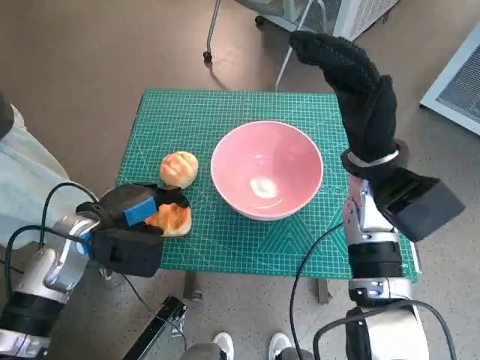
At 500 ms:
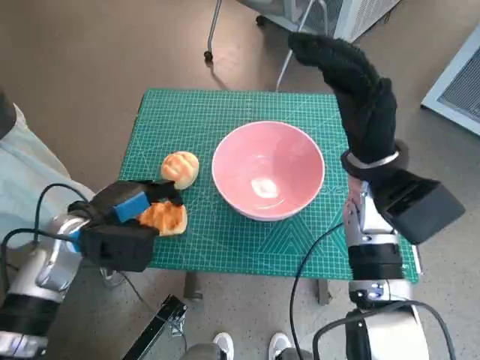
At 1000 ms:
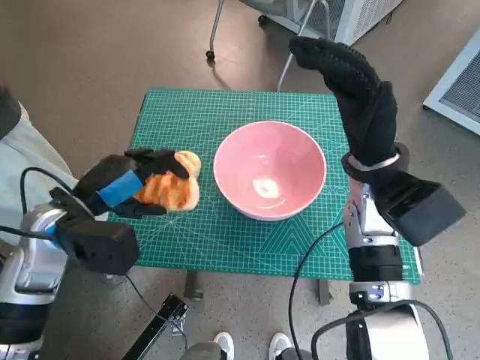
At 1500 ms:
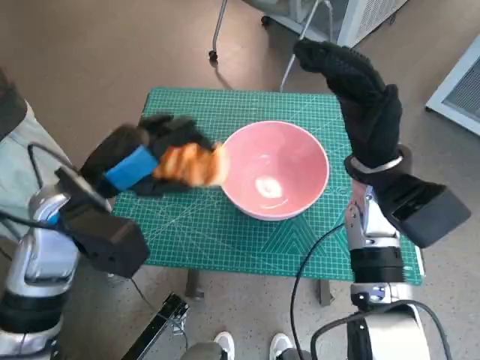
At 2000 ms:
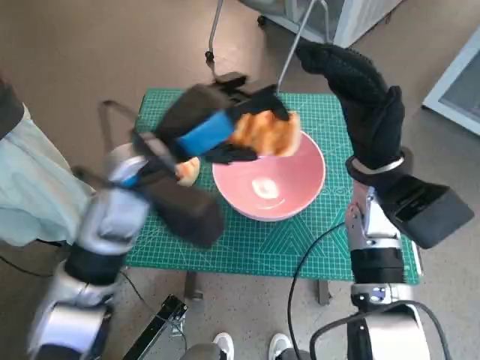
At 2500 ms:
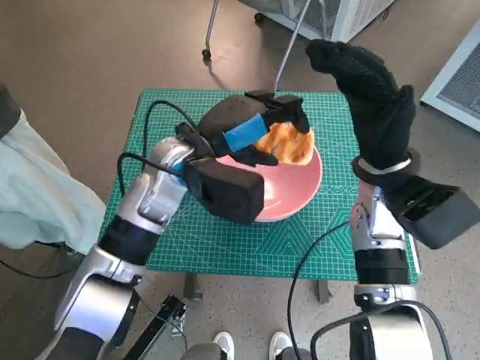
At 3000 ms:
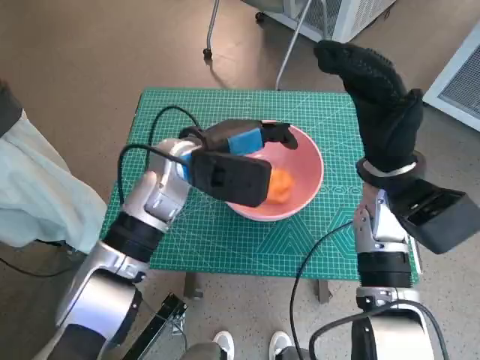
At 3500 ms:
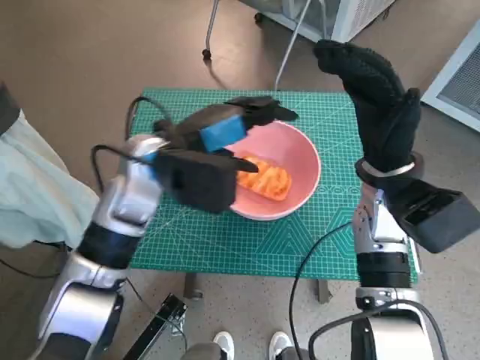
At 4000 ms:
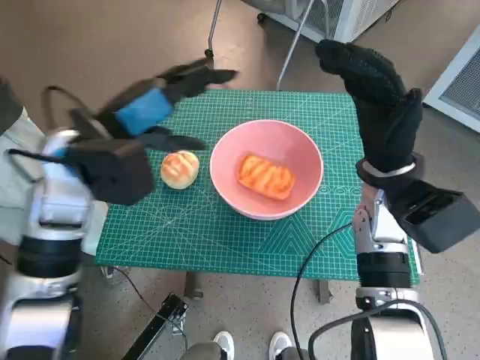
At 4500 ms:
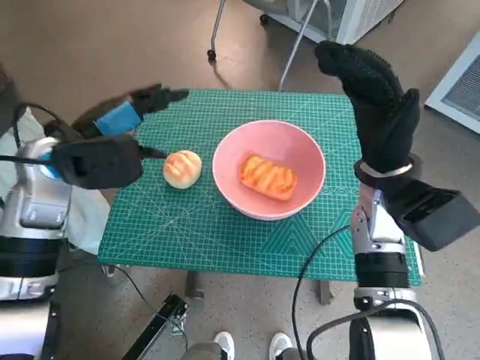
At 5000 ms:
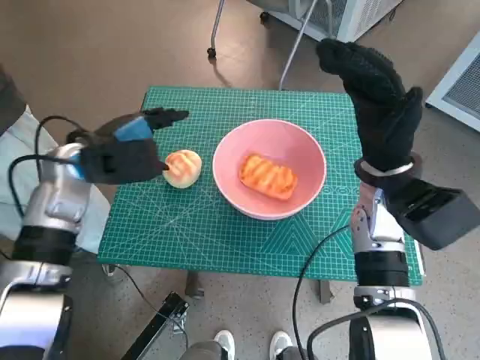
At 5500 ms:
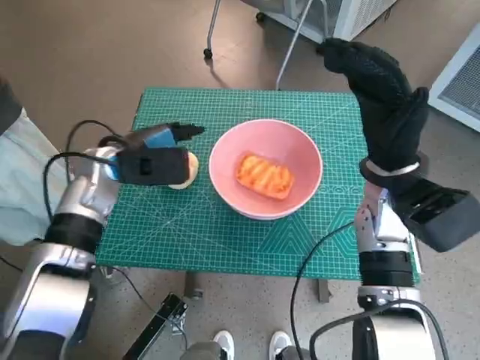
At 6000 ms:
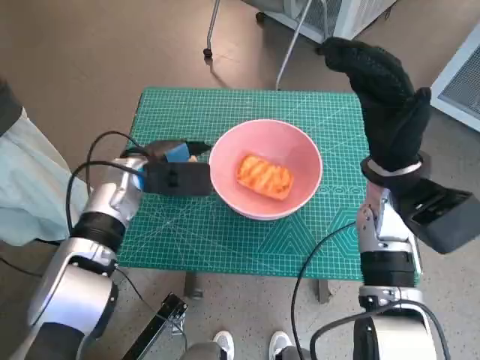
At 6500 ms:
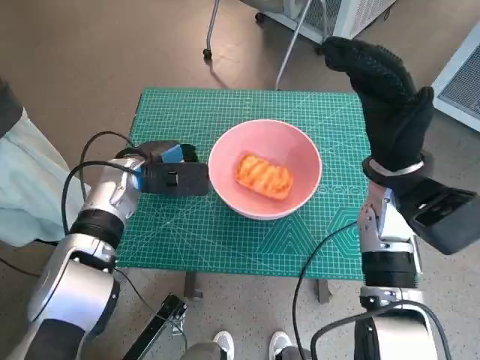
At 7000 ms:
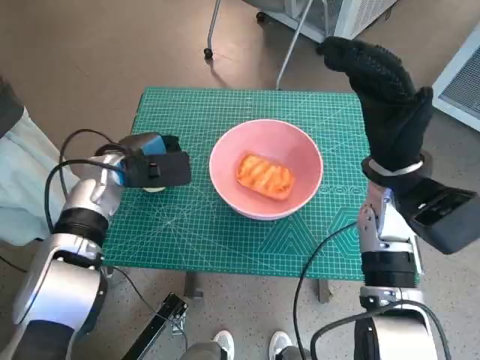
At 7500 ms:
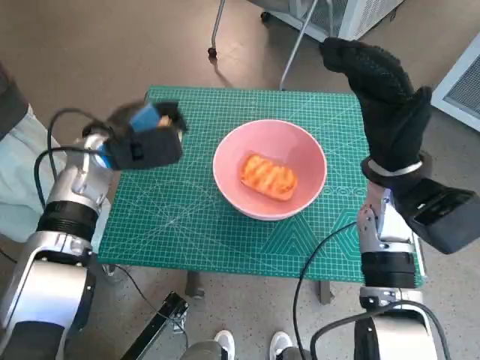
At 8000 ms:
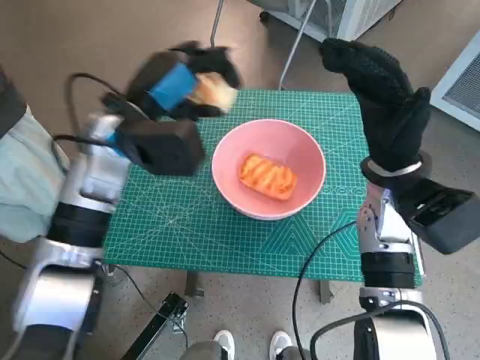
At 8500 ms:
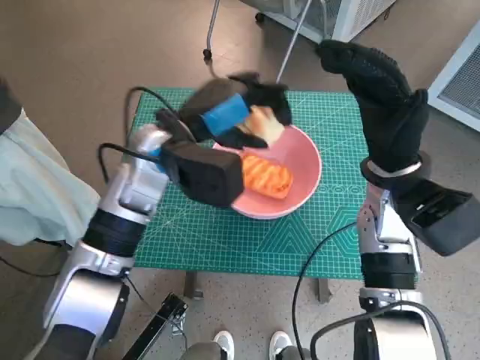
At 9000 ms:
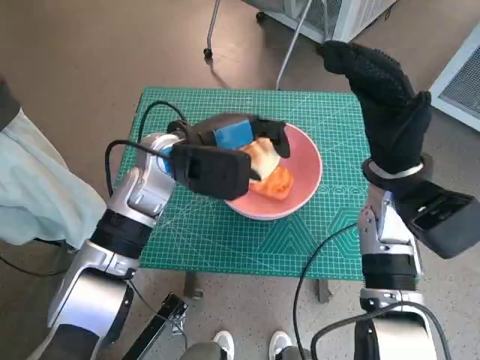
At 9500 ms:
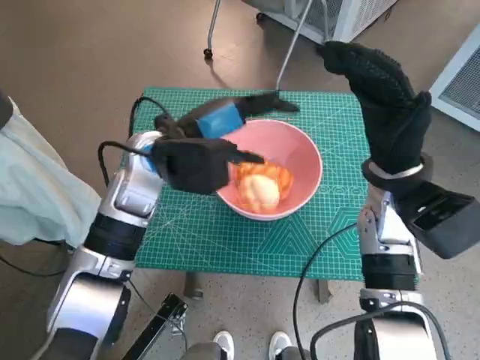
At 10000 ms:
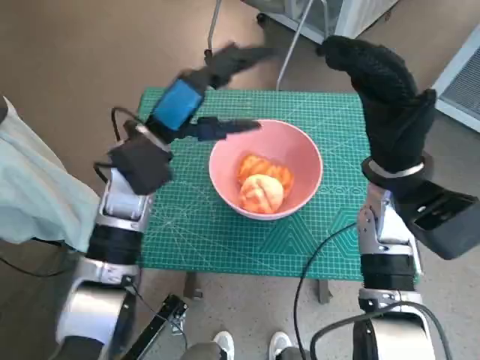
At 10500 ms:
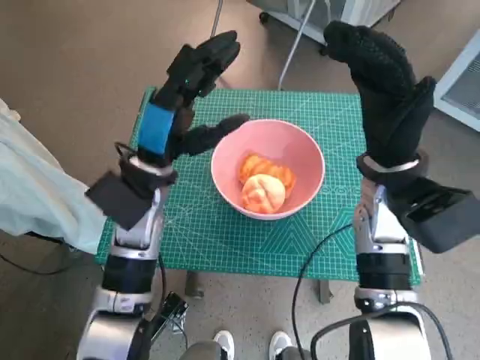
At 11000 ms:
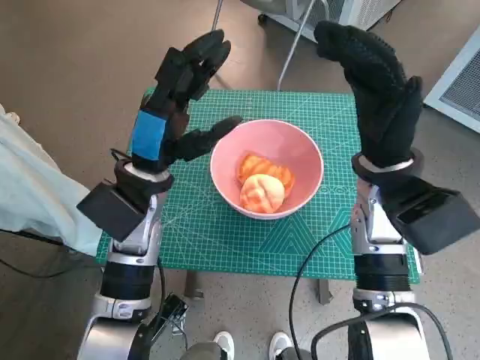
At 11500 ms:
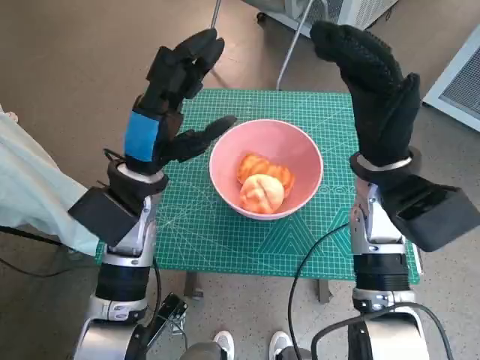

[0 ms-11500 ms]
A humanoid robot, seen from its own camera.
Task of the whole recording: Push the bowl to the center of the table and put the bread into the bowl.
Step, 500 ms to 3000 ms: Place the long bread in pink bowl with left hand.
Step, 3500 ms to 6500 ms: Grasp the round bread with left hand.
Step, 7000 ms to 9500 ms: Place the round bread in pink bowl with left hand.
0 ms to 2000 ms: The left hand travels upward and to the right by roughly 15 cm.
2000 ms to 4000 ms: The left hand heads to the left, covering some 5 cm.
4000 ms to 6000 ms: The left hand heads downward, covering about 10 cm.
6000 ms to 7500 ms: The left hand shifts by about 5 cm.
7500 ms to 9500 ms: The left hand goes about 10 cm to the right.
9500 ms to 11500 ms: The left hand shifts by roughly 5 cm.
